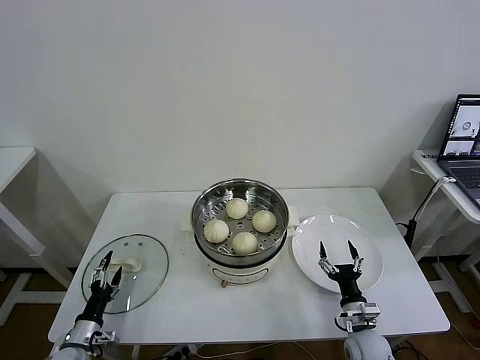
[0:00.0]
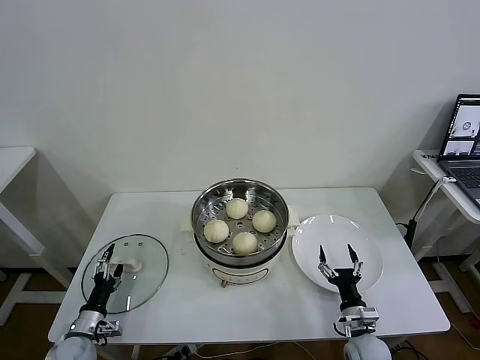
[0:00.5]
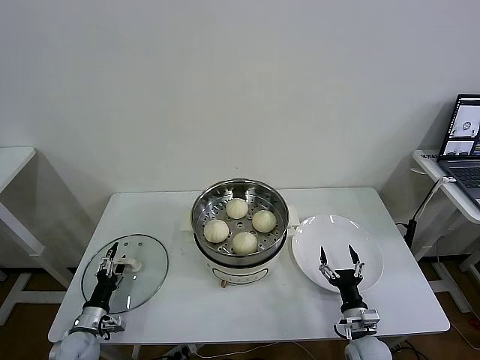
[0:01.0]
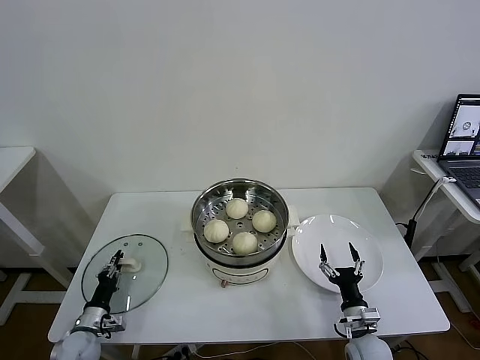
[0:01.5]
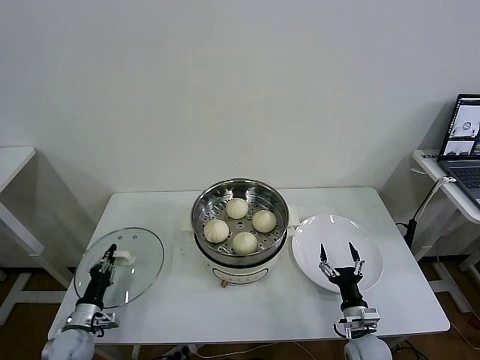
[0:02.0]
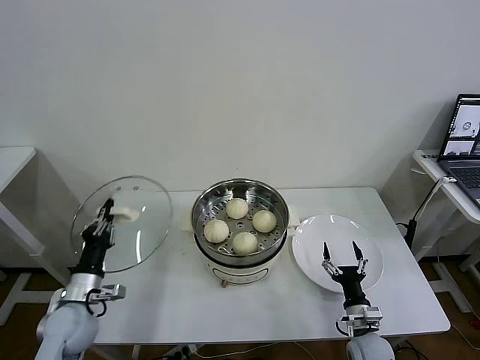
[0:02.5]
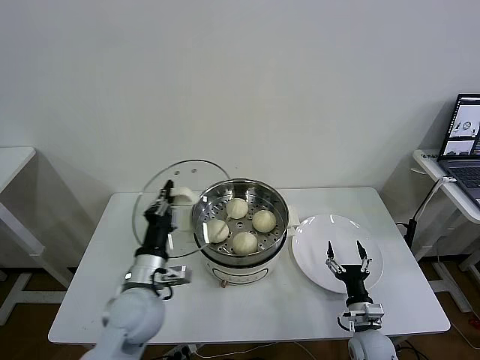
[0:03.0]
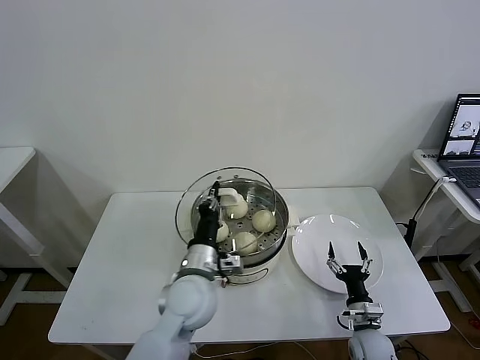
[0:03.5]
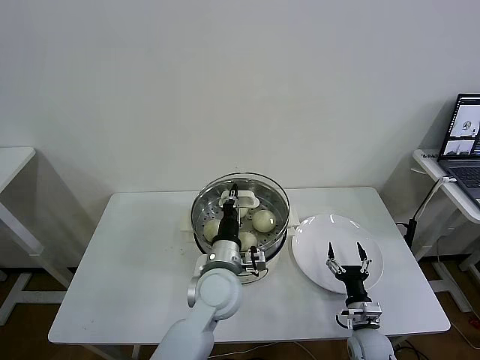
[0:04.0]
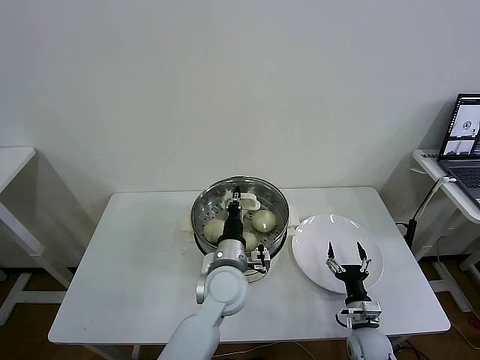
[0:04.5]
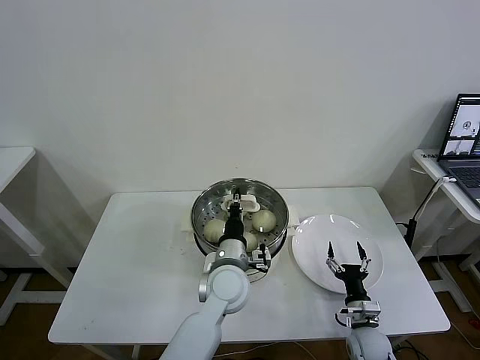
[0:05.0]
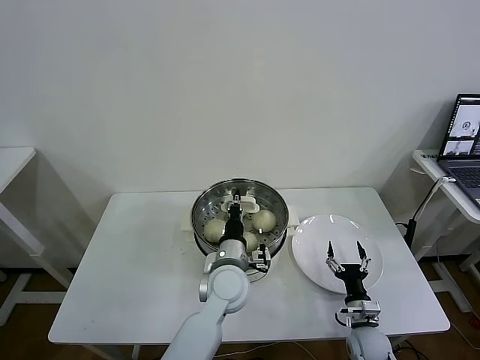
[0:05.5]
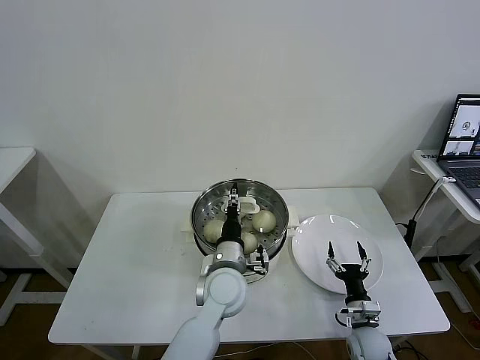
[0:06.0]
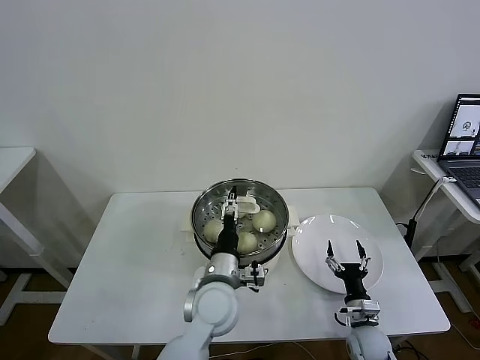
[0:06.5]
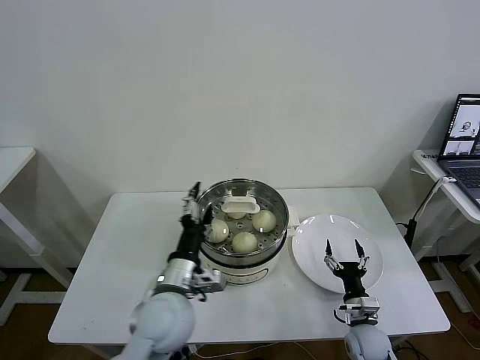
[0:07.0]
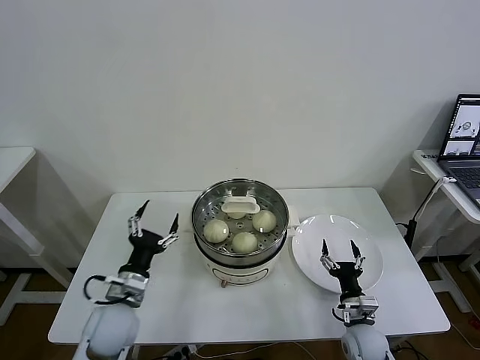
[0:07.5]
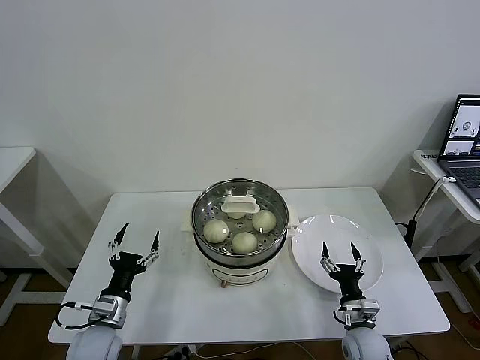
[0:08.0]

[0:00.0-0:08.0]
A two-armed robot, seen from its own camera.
Task of the whole recording: take steamed baozi put them in steamer then cover it.
Step, 0:02.0 to 0:05.5: Place the pot lid on the steamer with left gripper.
0:00.0 to 0:02.0: The left gripper closes.
0:02.0 to 0:04.0: The left gripper shifts approximately 40 cm to the right and upward.
0:04.0 to 0:06.0: The left gripper opens up.
0:06.0 to 0:08.0: The left gripper shifts roughly 25 cm to the left, and opens.

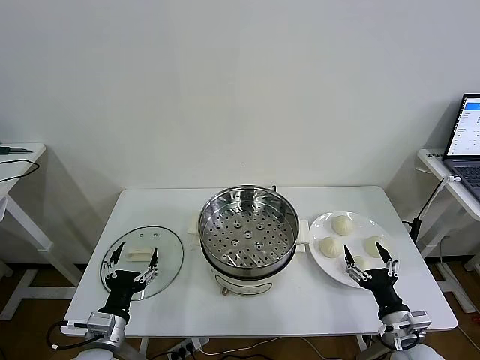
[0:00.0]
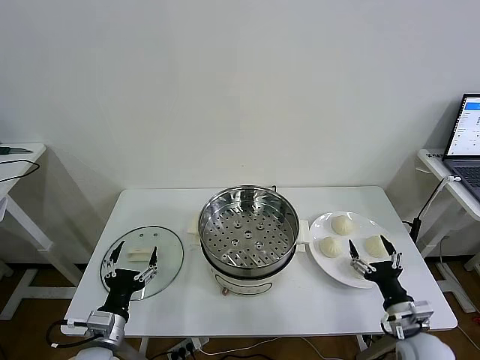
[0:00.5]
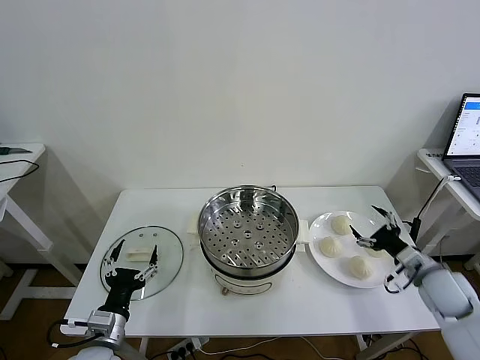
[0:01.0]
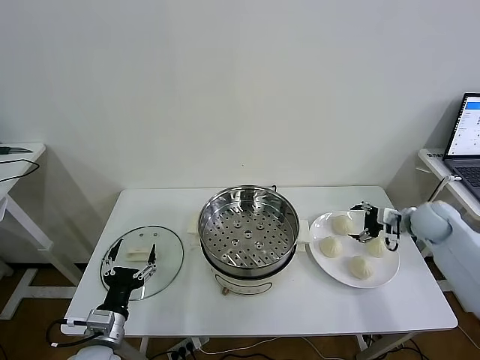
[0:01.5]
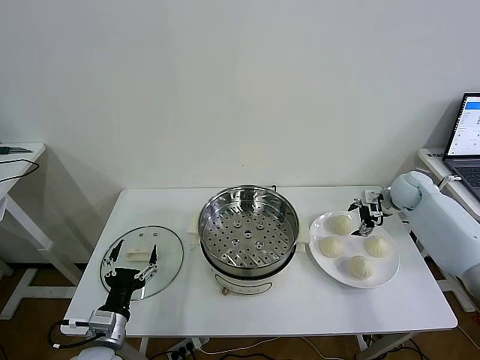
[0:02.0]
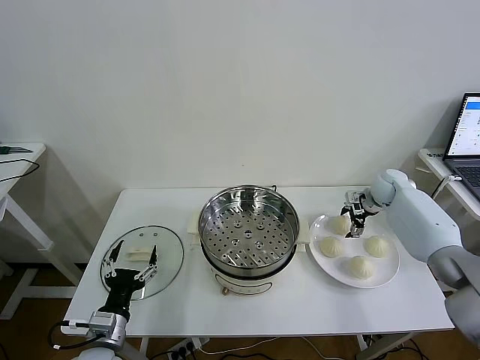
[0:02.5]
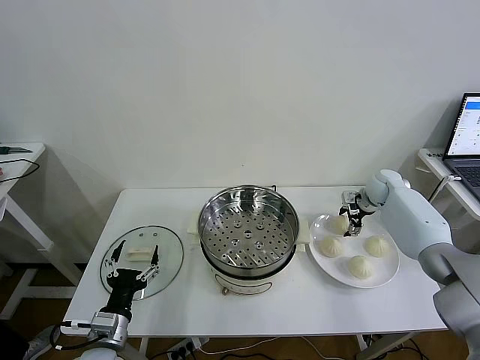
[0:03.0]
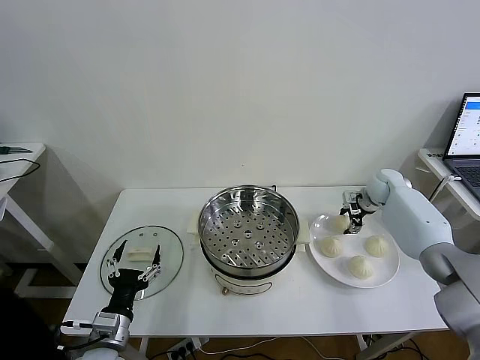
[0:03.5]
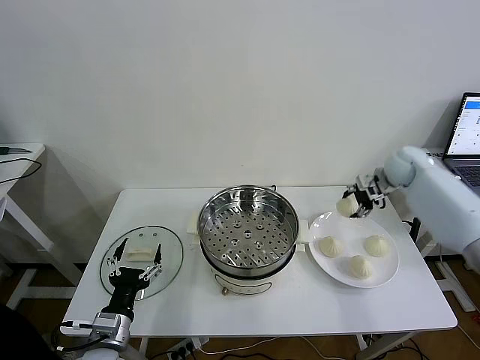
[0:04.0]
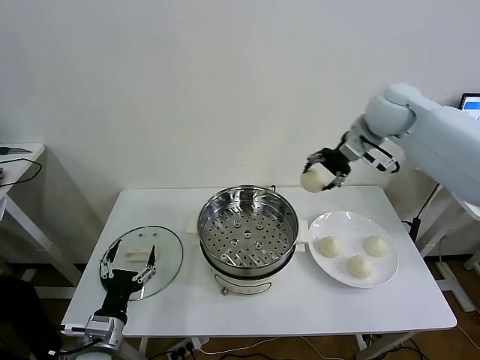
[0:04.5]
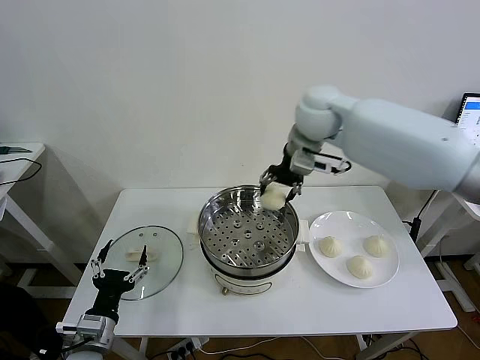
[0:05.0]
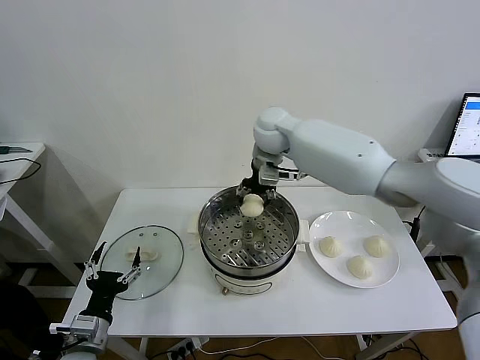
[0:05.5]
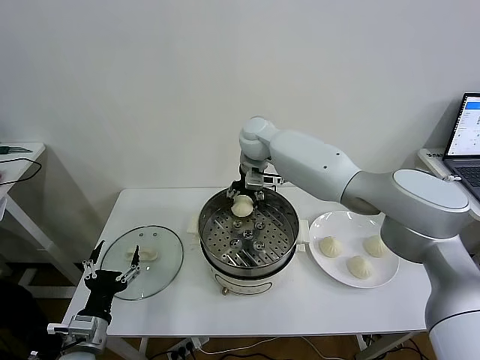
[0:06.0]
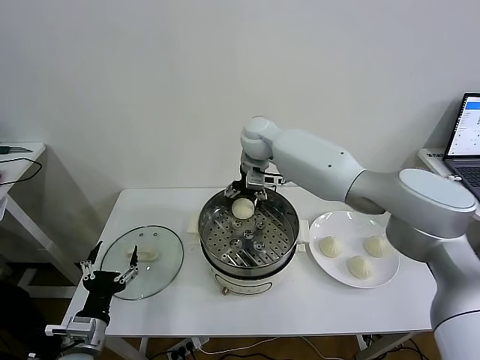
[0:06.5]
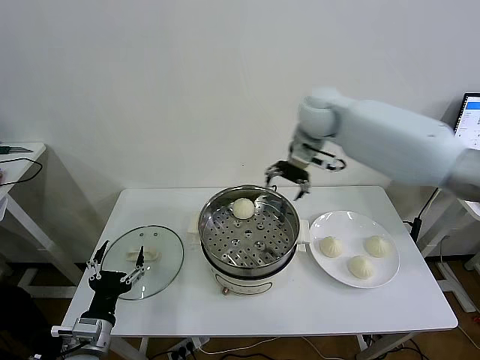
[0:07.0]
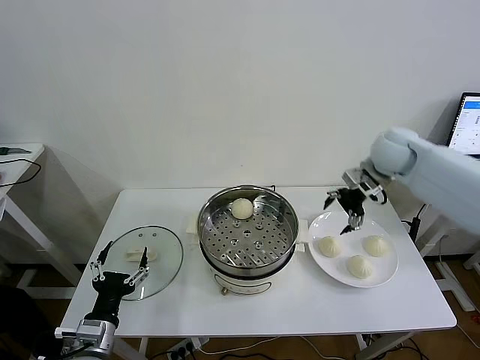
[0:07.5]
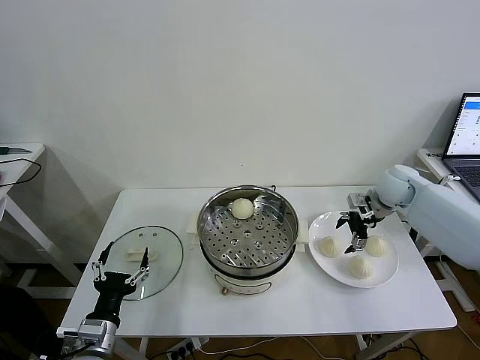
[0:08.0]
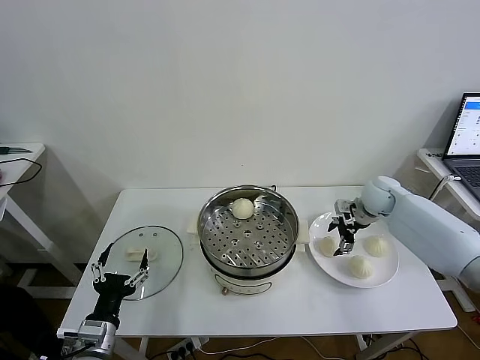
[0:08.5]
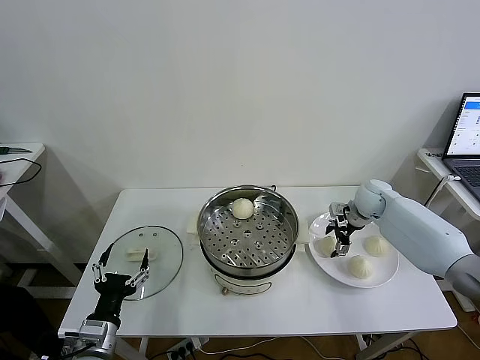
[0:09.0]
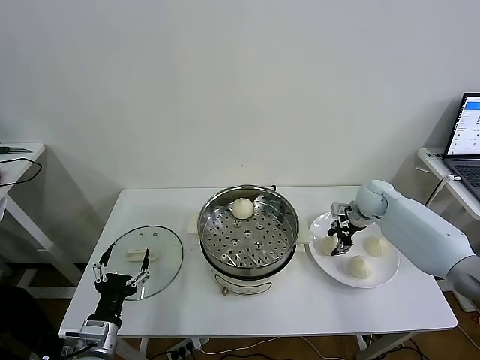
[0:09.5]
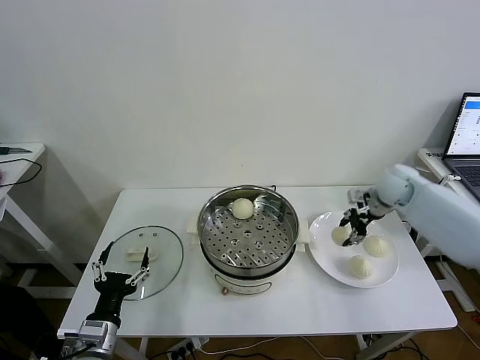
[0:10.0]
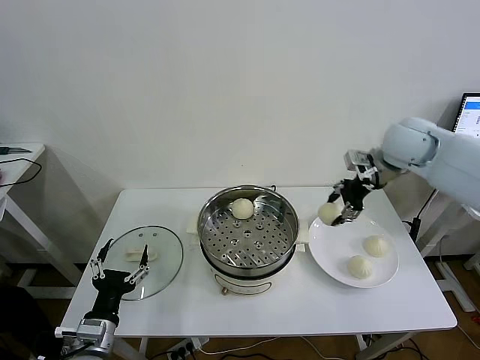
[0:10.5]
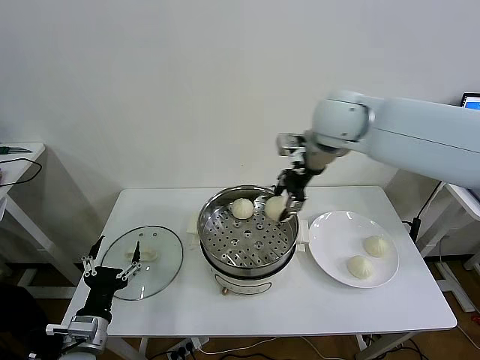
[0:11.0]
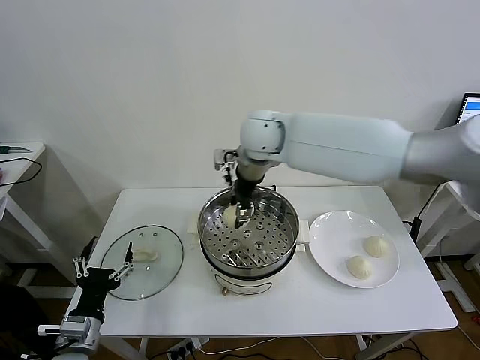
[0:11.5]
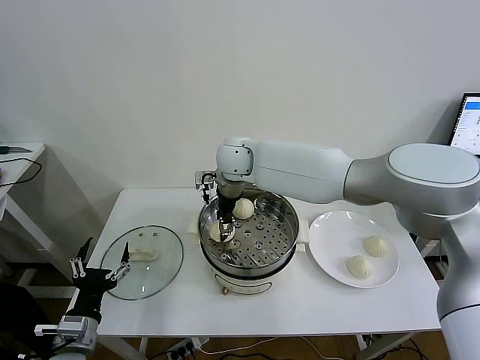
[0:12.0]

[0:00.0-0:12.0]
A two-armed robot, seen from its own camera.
Task of the whole recording: take steamed baozi put them in steamer then cover it.
Step, 0:00.0 to 0:03.0: Grasp the baozi in the plate with right gripper.
Step, 0:03.5 to 0:06.0: Place the baozi on the steamer with right gripper.
Step, 0:06.5 to 0:09.0: Grasp the baozi in the plate with right gripper.
0:02.0 to 0:04.0: The right gripper travels upward by approximately 10 cm, and closes.
0:04.0 to 0:06.0: The right gripper shifts some 35 cm to the left.
0:06.0 to 0:08.0: The right gripper travels to the right by about 35 cm, and opens.
0:08.0 to 0:10.0: The right gripper closes.
0:10.0 to 0:12.0: The right gripper shifts some 40 cm to the left.

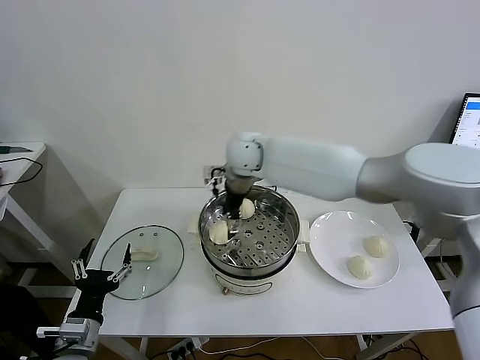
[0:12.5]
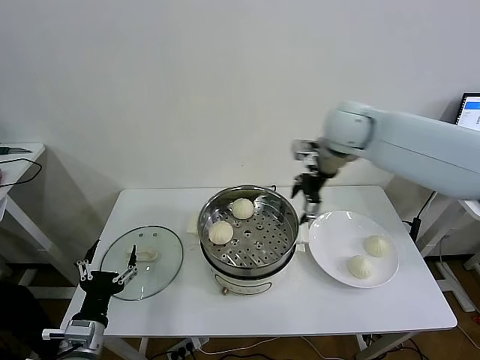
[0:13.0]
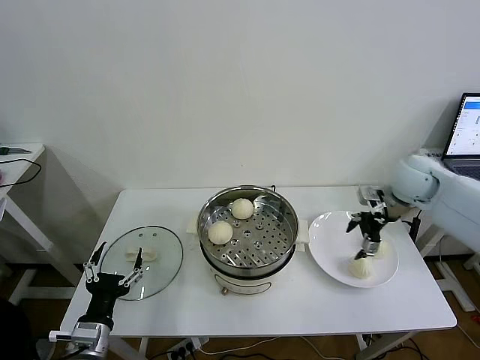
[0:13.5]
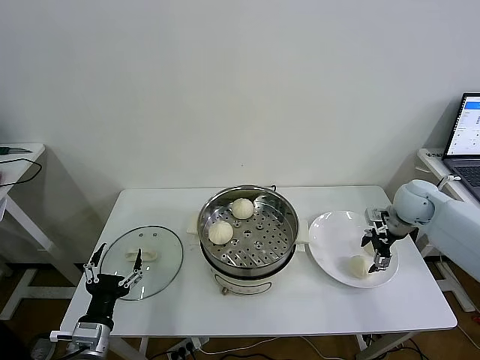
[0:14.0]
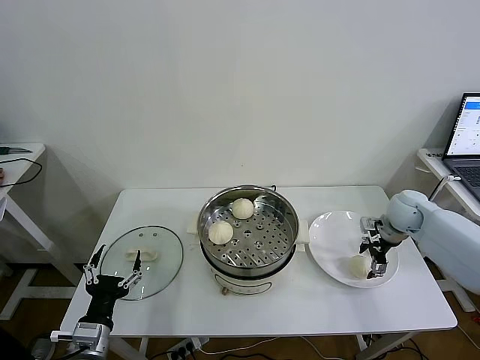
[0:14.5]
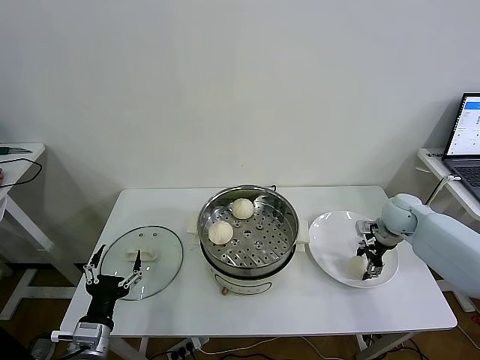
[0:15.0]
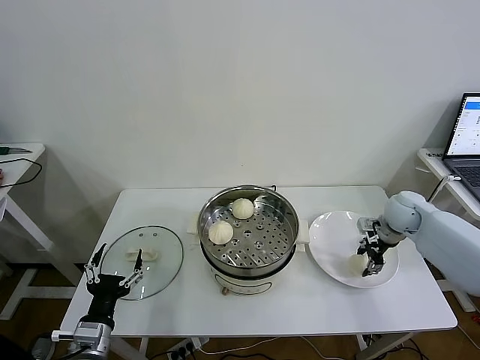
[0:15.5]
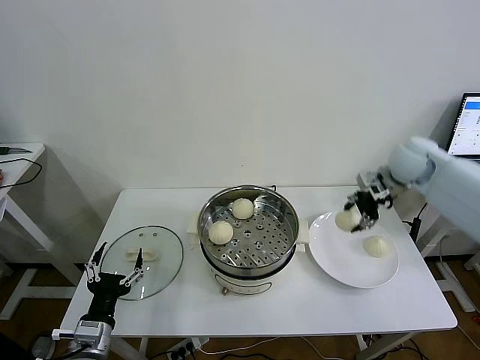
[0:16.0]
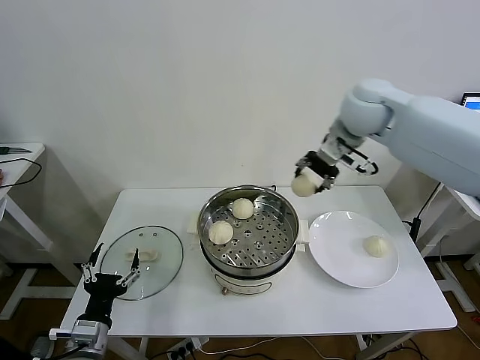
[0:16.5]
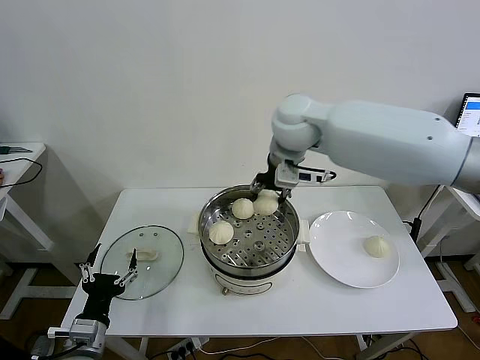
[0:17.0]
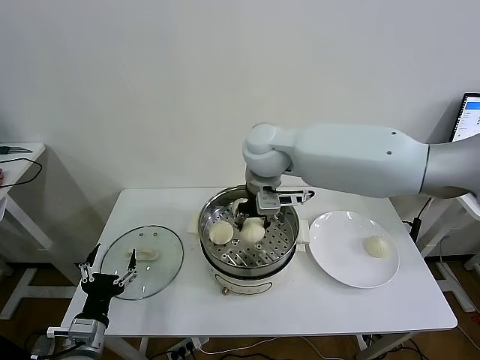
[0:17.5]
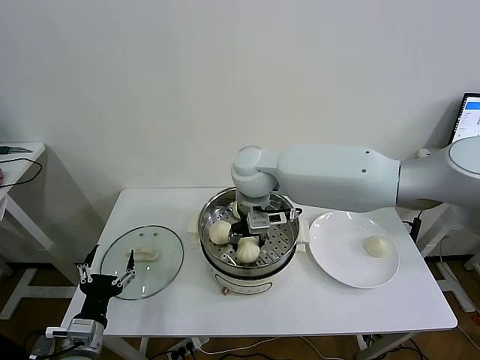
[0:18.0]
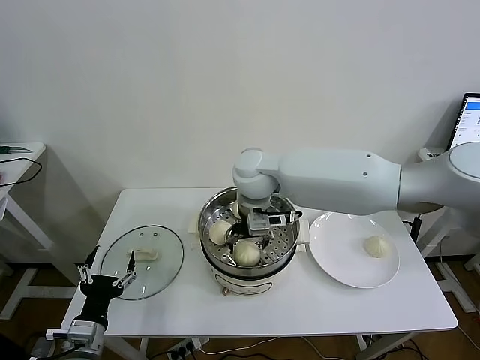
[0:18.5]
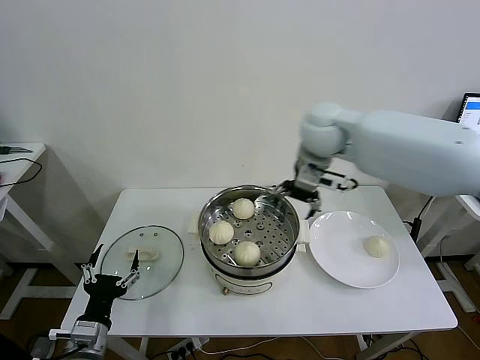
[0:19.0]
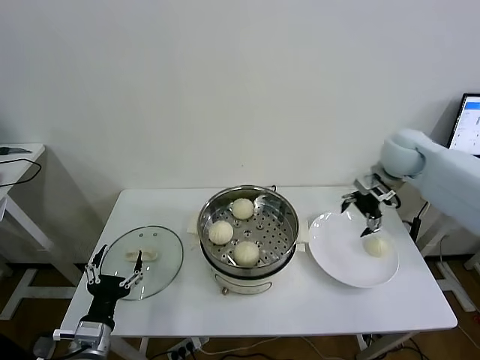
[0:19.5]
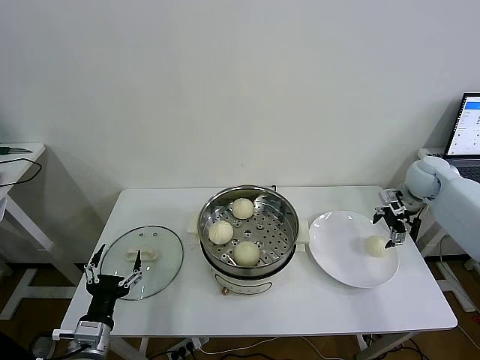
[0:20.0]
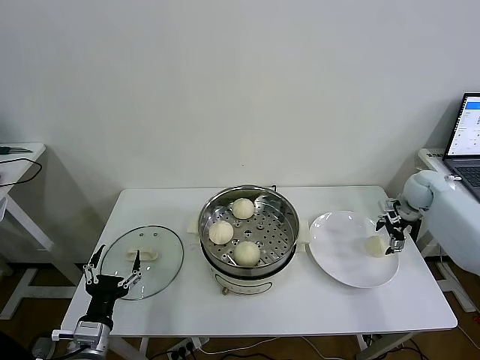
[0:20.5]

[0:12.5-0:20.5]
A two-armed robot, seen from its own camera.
Task of the whole recording: take steamed baozi put them in steamer then cover it.
Step, 0:12.5 to 0:15.0: Grasp the baozi in the plate with right gripper.
Step, 0:15.5 to 0:18.5: Place the baozi on the steamer with right gripper.
0:12.5 to 0:14.5: The right gripper heads to the right and downward, covering roughly 40 cm.
0:14.5 to 0:16.5: The right gripper heads upward and to the left, covering about 35 cm, and closes.
0:16.5 to 0:18.5: The right gripper is displaced to the left and downward by roughly 20 cm, and opens its fingers.
0:18.5 to 0:20.5: The right gripper moves to the right, about 40 cm.
